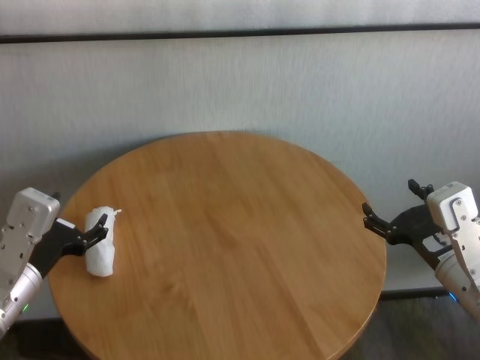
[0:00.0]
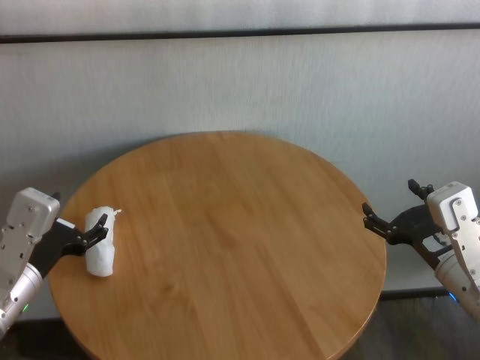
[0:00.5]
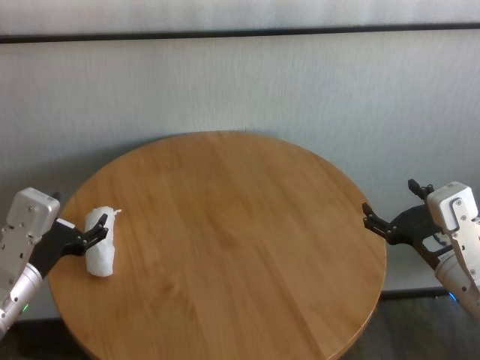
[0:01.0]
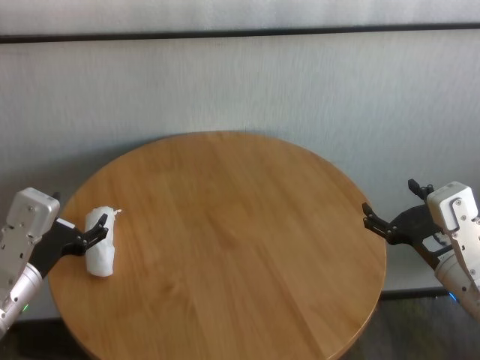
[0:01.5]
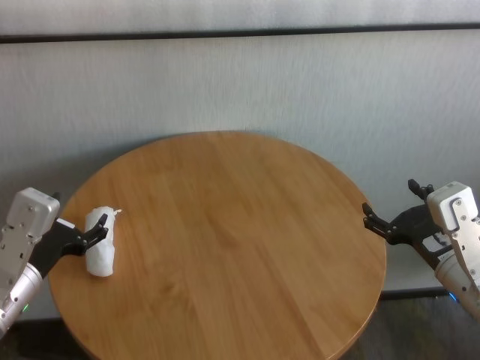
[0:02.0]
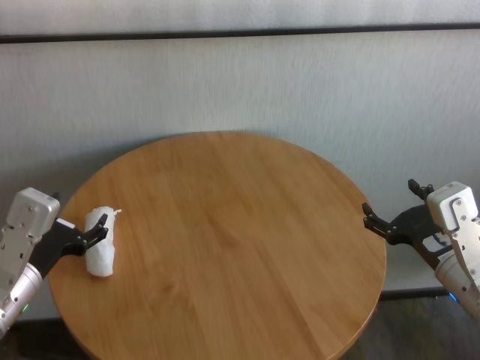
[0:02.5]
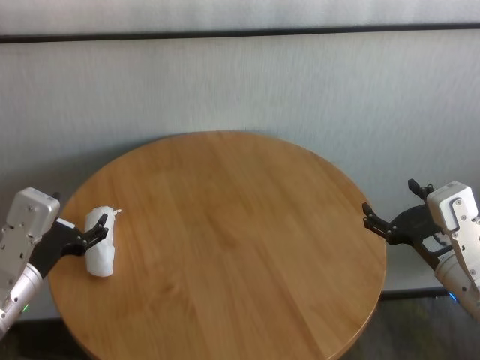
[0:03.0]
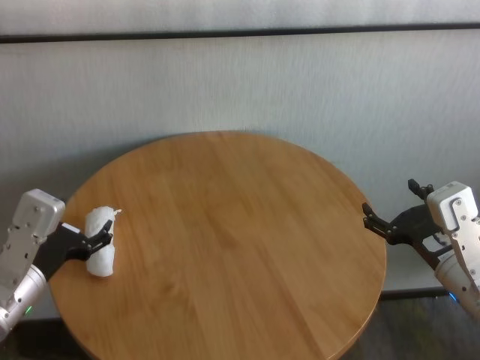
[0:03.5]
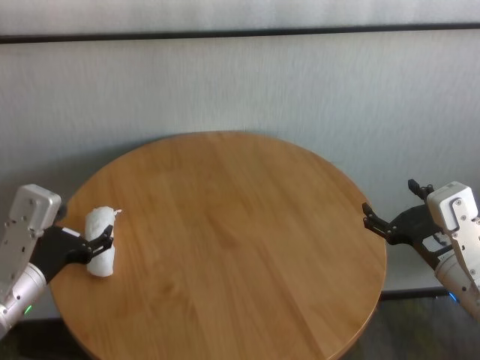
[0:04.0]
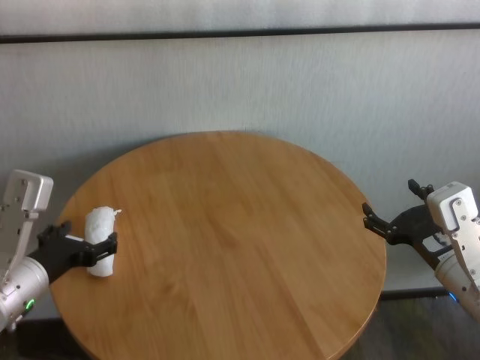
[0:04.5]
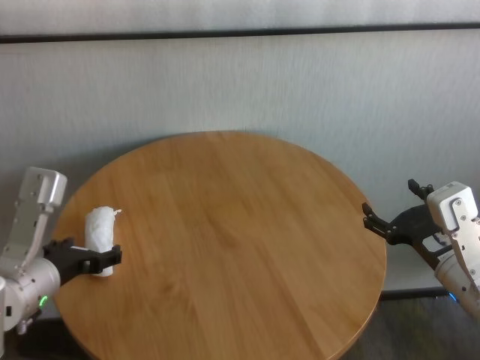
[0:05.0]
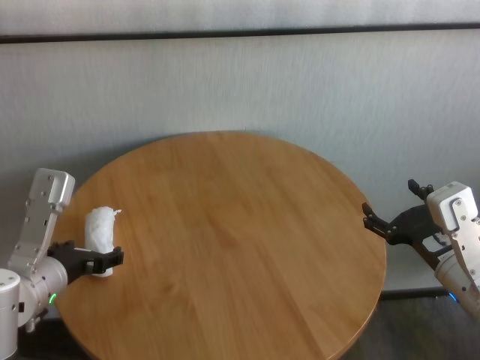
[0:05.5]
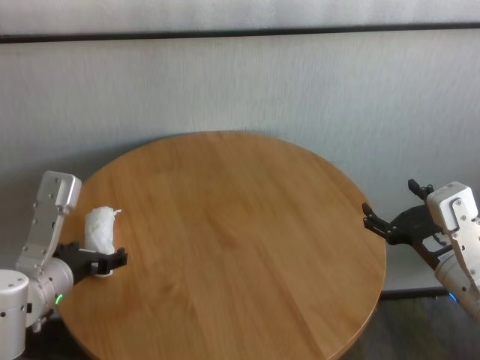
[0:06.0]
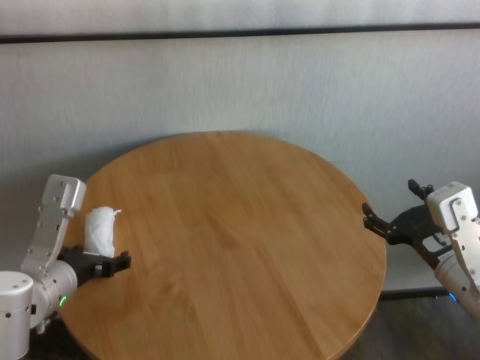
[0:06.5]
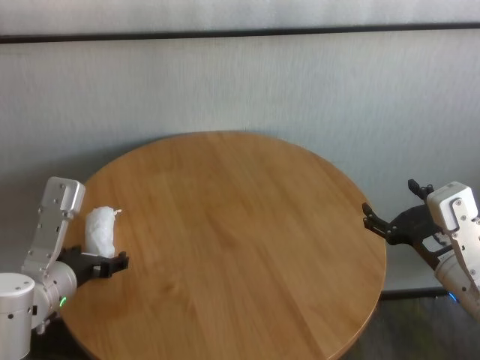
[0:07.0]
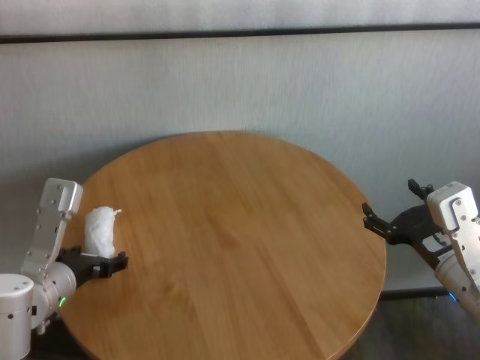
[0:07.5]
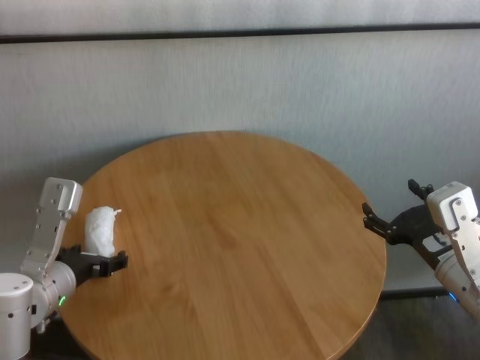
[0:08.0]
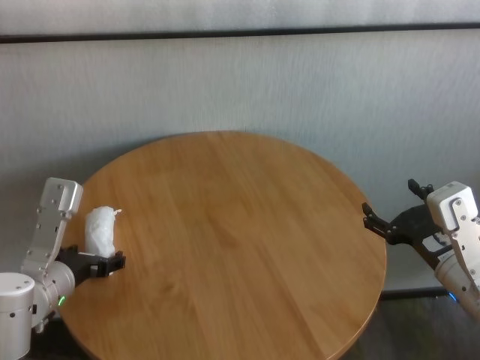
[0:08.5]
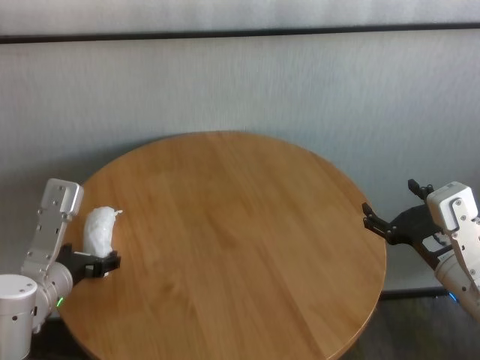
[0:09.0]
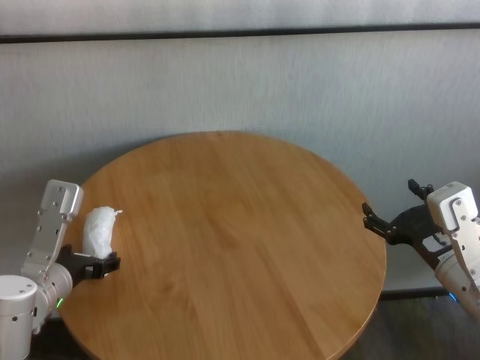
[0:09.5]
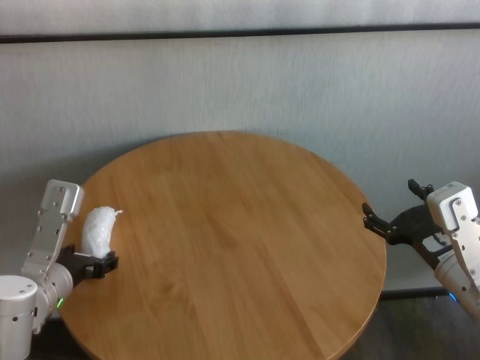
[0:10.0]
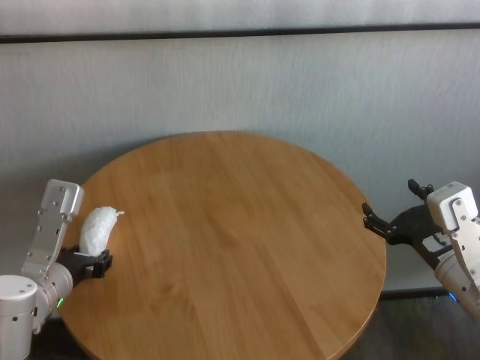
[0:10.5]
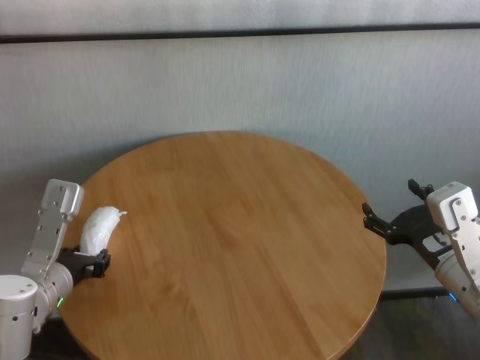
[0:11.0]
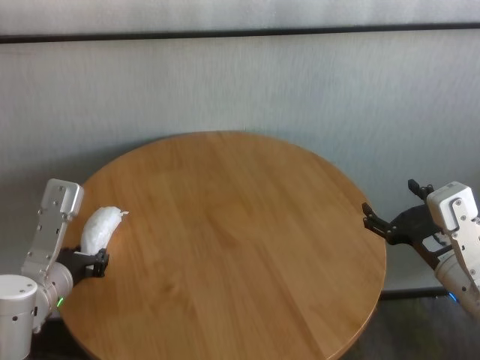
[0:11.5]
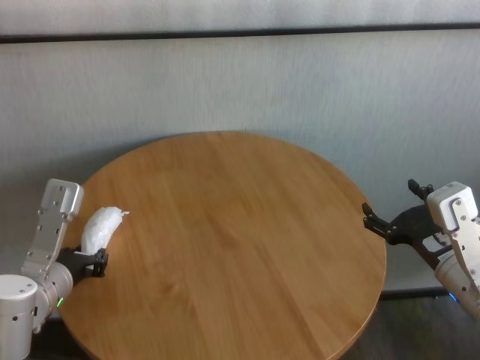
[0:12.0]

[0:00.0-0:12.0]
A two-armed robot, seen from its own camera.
Task of the whole recording: One hand took the sandbag from the other hand and placed it on the table.
Step, 0:00.0 to 0:11.5: Grasp the paper ball with left gripper.

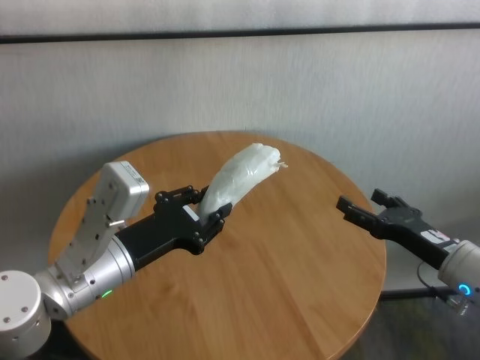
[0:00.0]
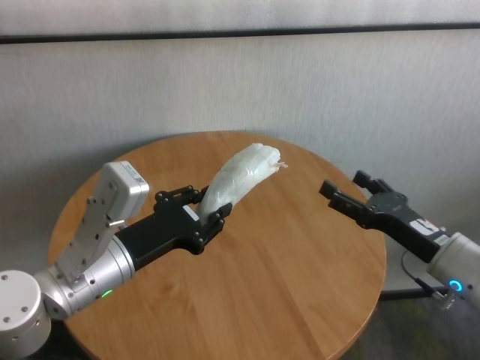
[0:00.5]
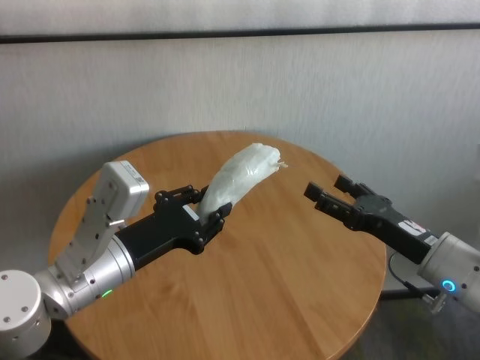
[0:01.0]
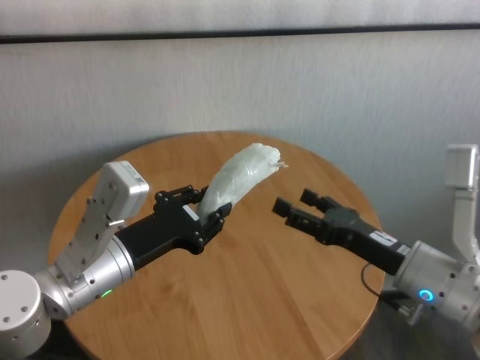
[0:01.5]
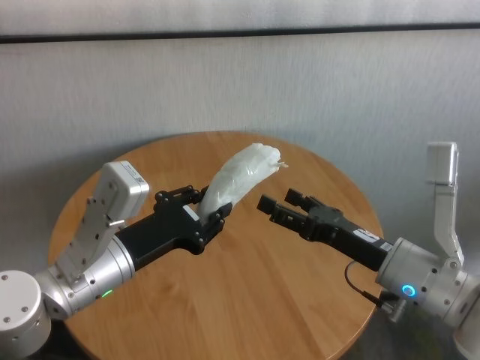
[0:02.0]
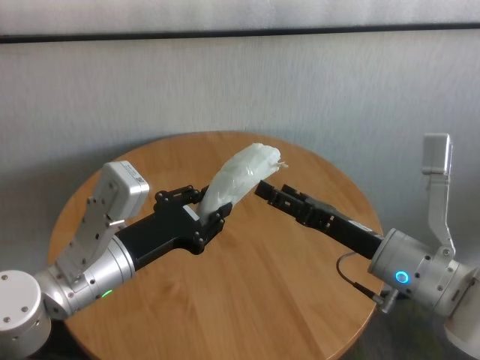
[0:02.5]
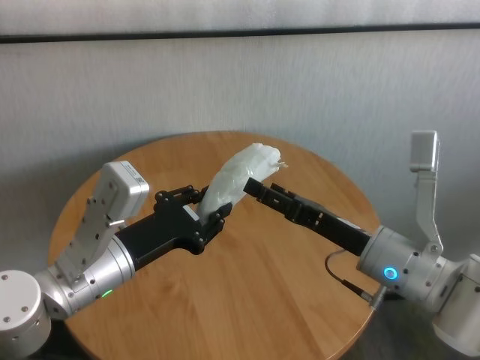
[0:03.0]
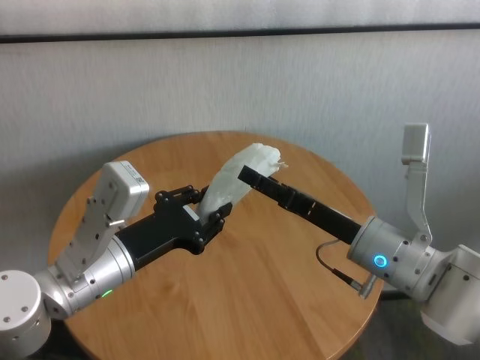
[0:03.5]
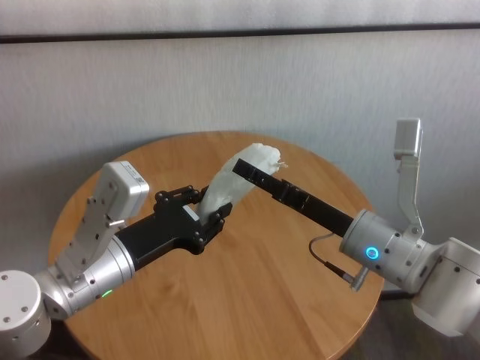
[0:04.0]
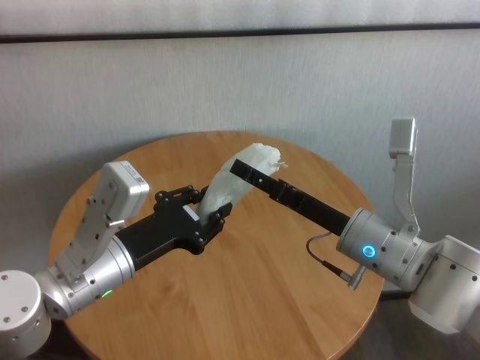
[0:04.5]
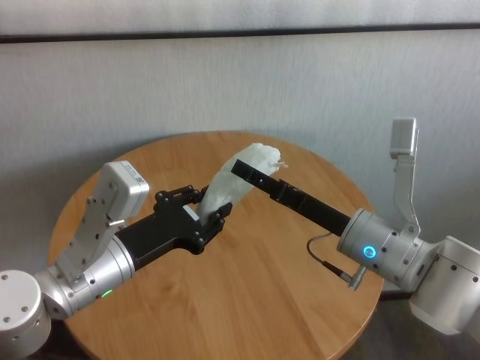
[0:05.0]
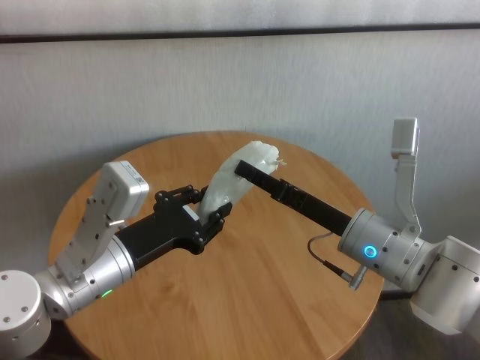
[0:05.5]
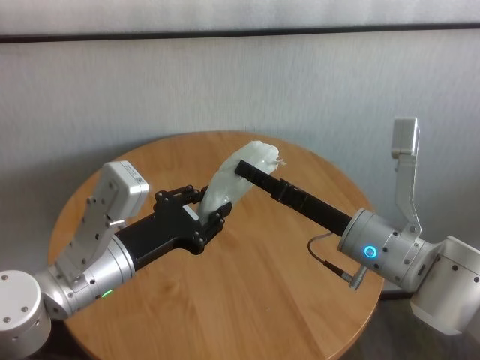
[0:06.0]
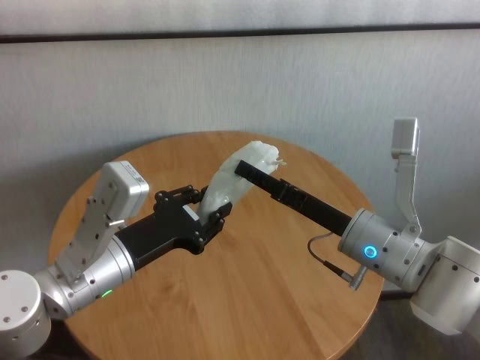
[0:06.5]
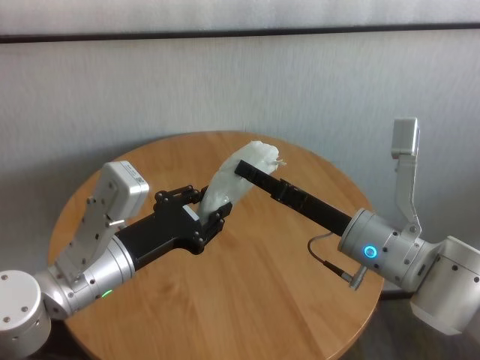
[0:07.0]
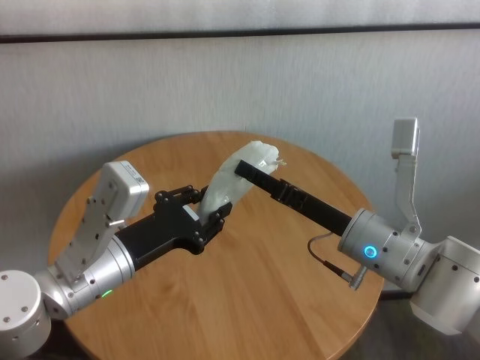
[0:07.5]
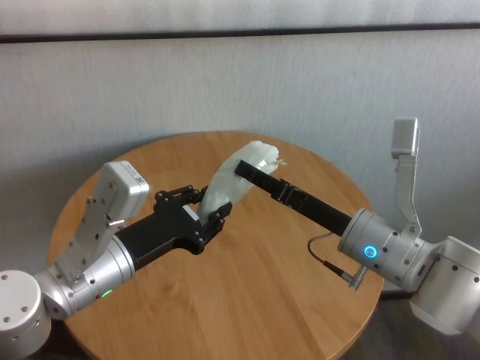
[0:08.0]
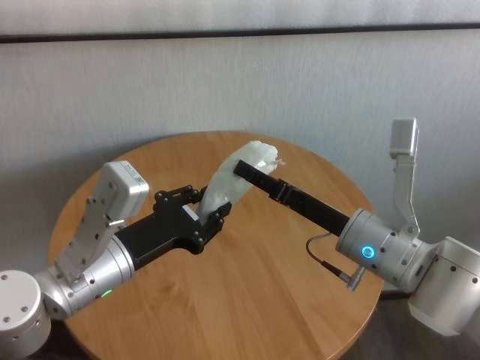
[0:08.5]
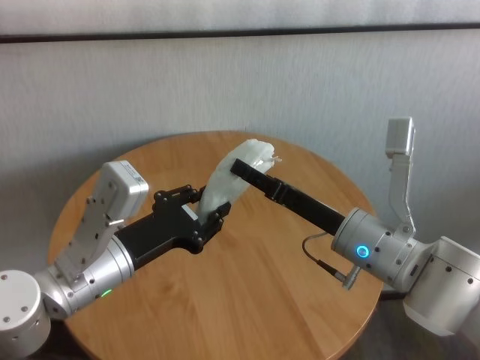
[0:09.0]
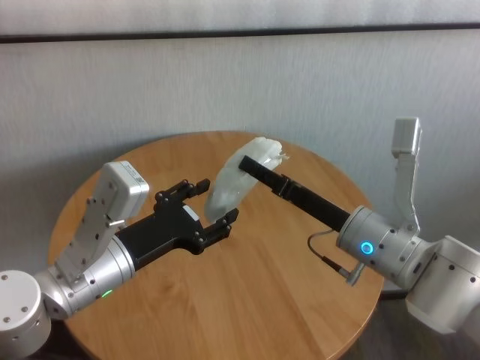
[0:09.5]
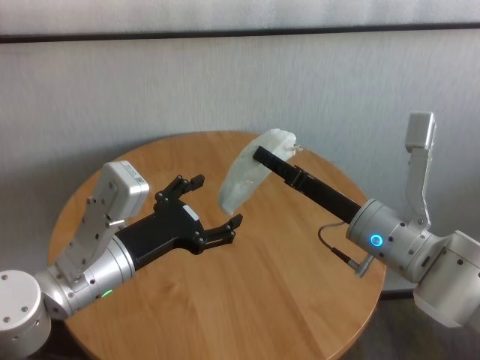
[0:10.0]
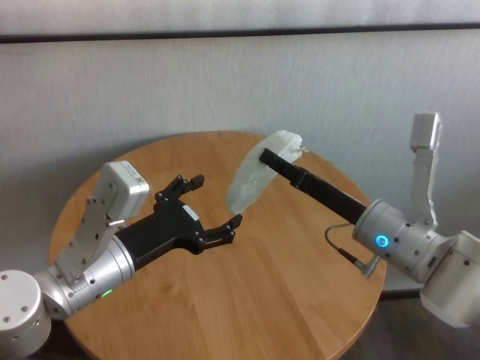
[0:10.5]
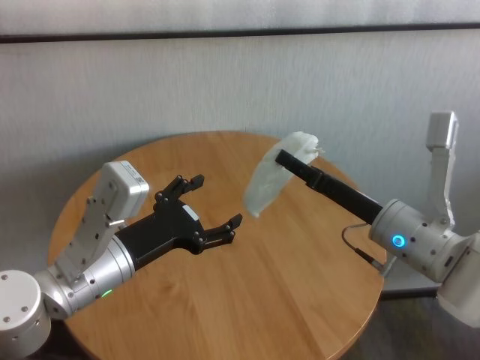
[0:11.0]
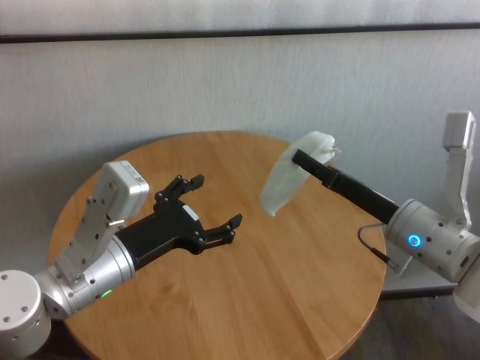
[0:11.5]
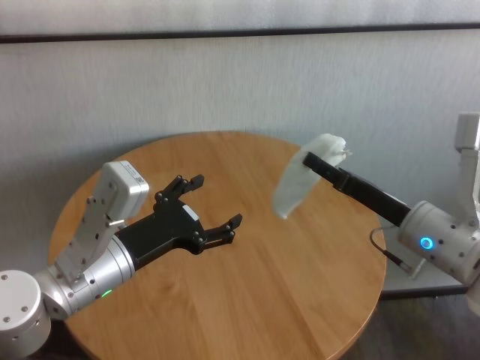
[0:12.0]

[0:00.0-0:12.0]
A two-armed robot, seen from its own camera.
Task of the whole recording: One hand took the sandbag from the other hand and placed it on the table.
Step, 0:00.0 to 0:10.0: Pass the paper ball to the right gripper.

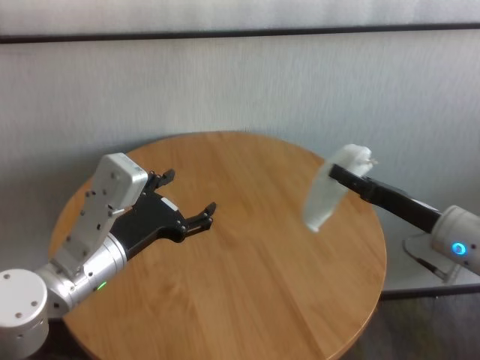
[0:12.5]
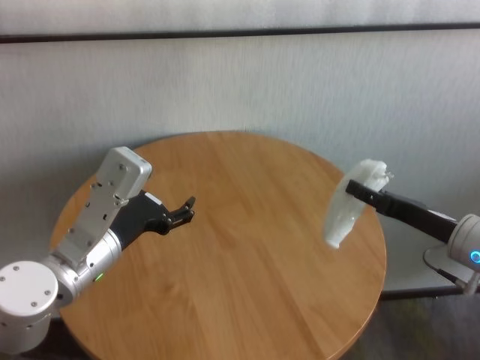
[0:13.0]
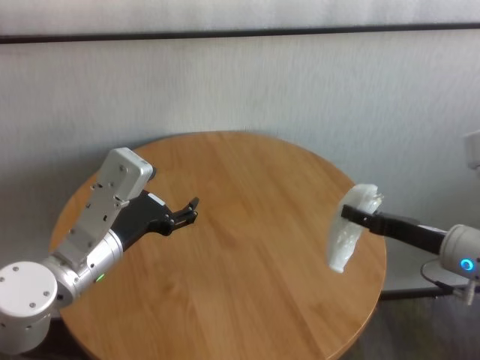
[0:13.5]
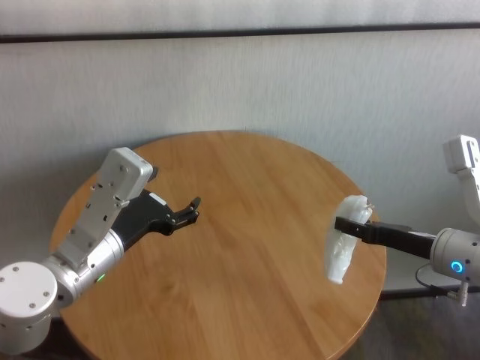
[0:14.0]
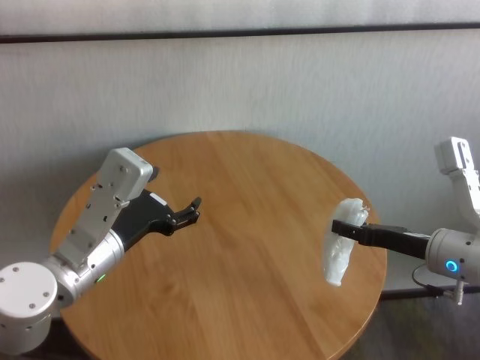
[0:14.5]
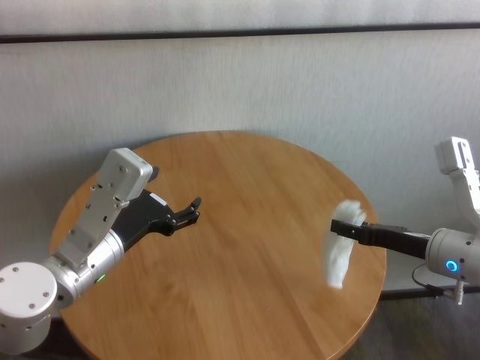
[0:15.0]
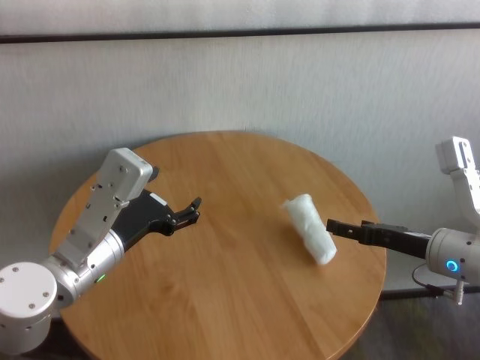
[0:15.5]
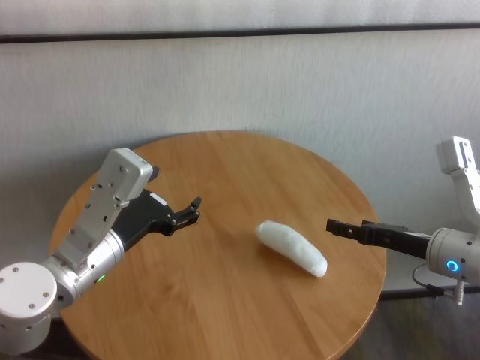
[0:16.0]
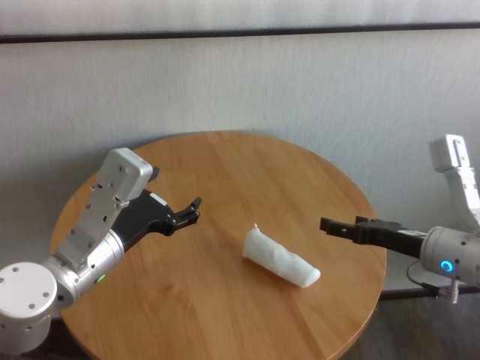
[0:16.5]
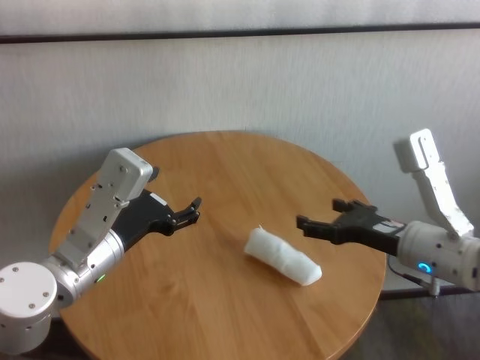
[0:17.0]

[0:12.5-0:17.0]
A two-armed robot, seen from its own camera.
Task of the whole recording: One hand took the sandbag from the other hand and placed it on the table.
Step, 0:12.5 to 0:15.5: Place the paper ball on the table with right gripper.
